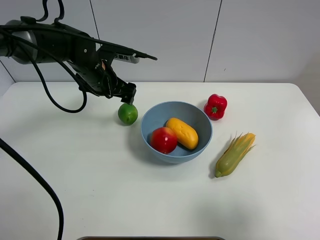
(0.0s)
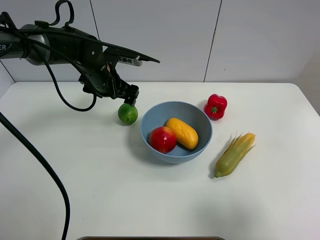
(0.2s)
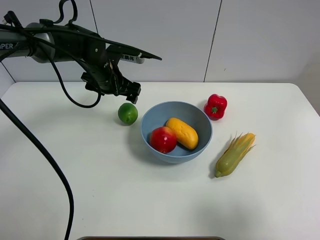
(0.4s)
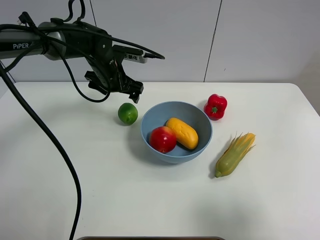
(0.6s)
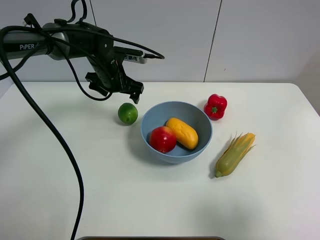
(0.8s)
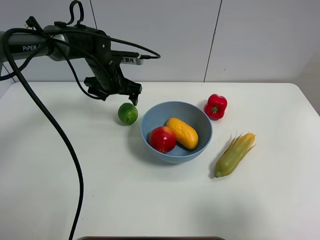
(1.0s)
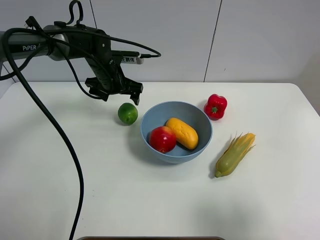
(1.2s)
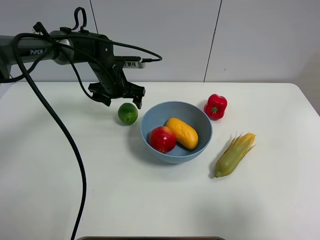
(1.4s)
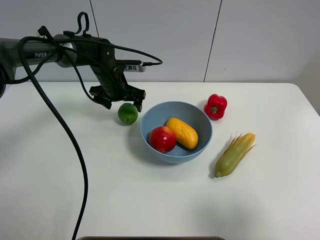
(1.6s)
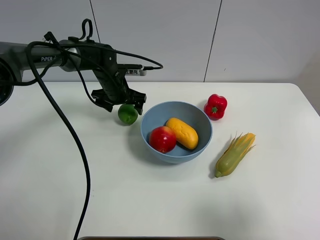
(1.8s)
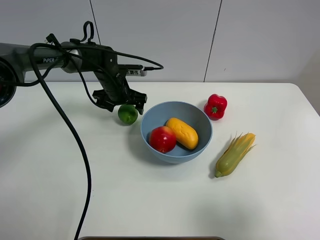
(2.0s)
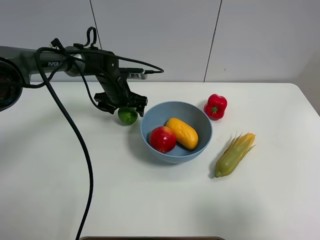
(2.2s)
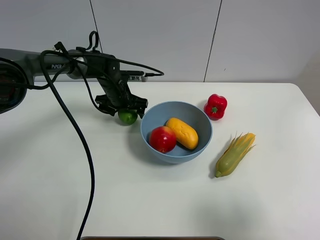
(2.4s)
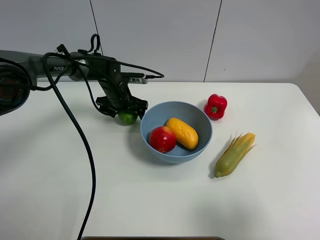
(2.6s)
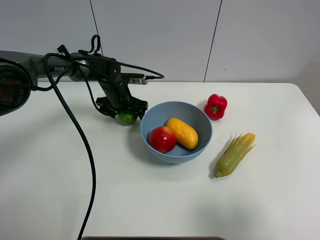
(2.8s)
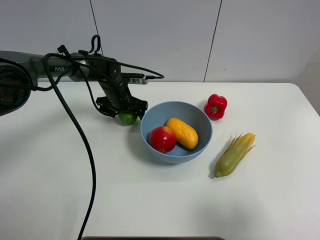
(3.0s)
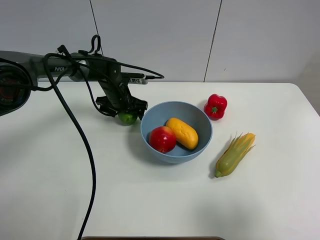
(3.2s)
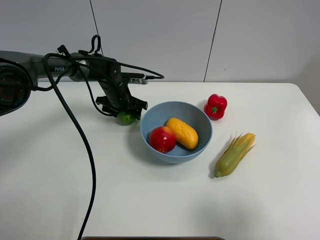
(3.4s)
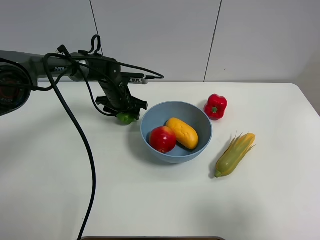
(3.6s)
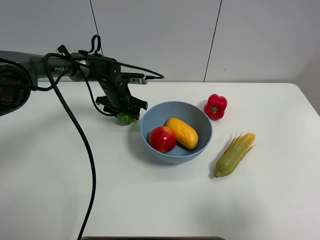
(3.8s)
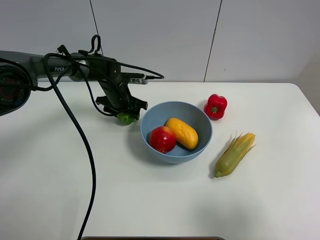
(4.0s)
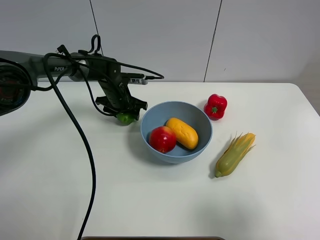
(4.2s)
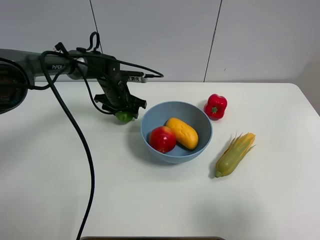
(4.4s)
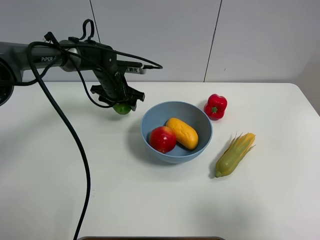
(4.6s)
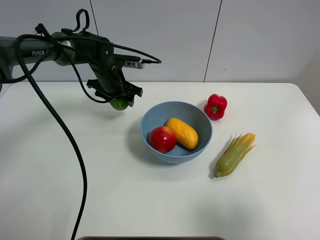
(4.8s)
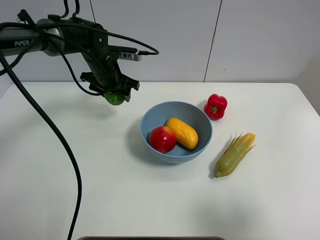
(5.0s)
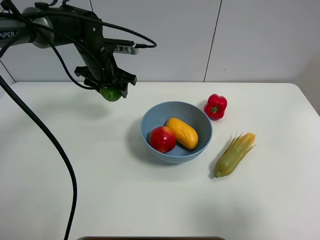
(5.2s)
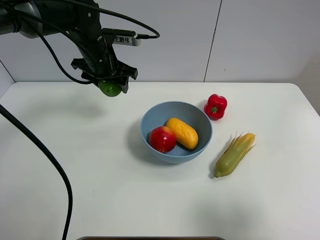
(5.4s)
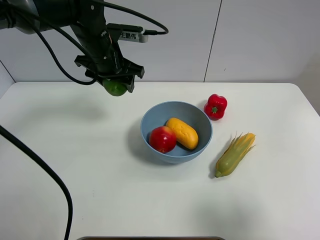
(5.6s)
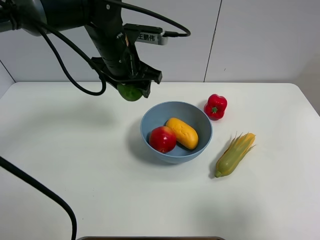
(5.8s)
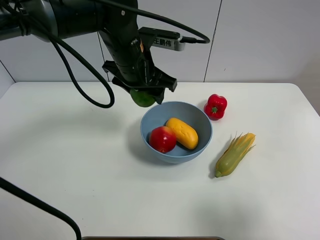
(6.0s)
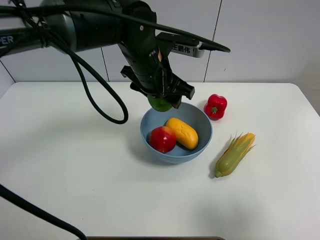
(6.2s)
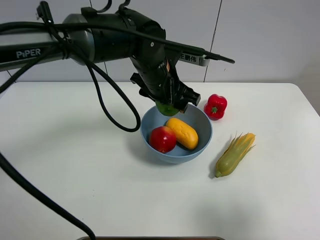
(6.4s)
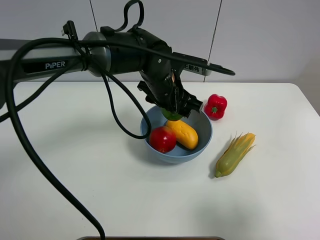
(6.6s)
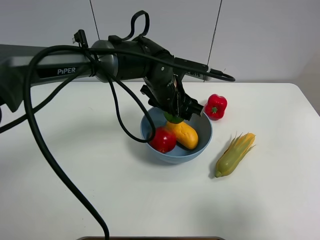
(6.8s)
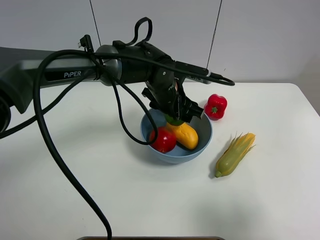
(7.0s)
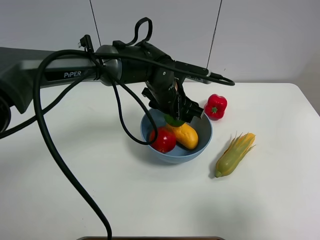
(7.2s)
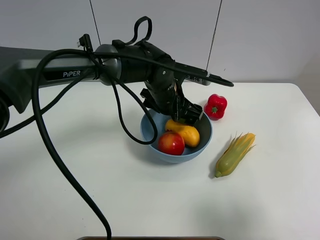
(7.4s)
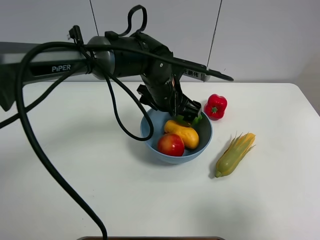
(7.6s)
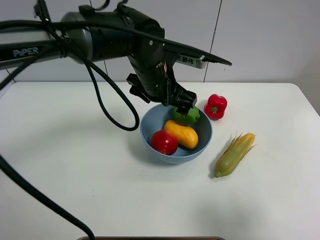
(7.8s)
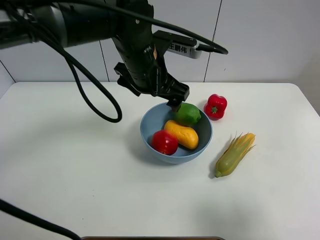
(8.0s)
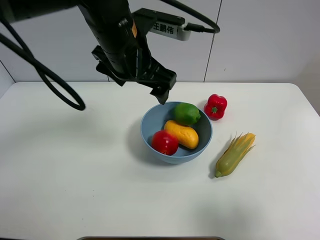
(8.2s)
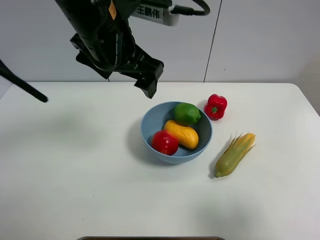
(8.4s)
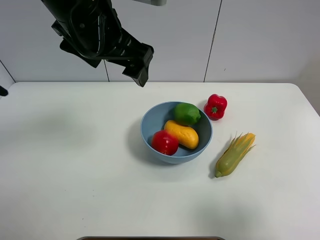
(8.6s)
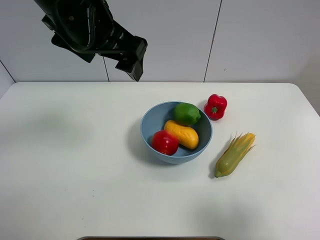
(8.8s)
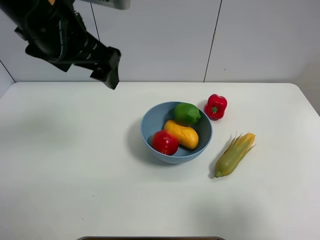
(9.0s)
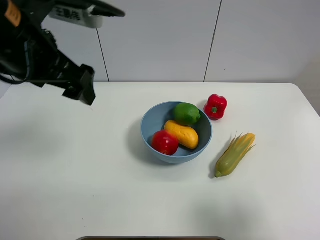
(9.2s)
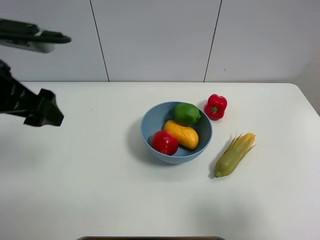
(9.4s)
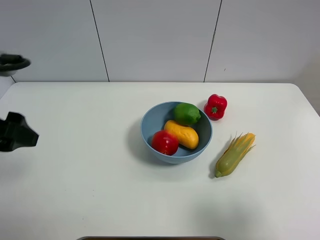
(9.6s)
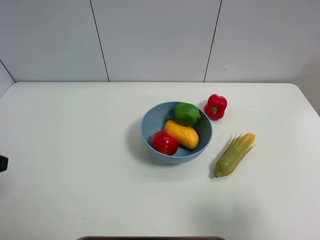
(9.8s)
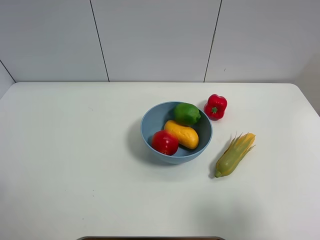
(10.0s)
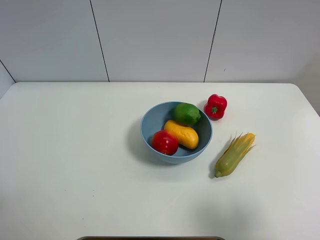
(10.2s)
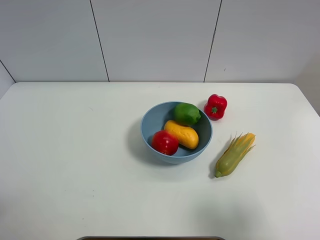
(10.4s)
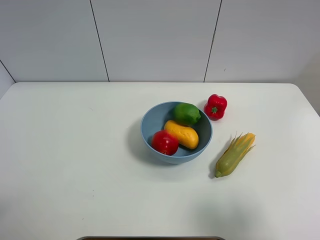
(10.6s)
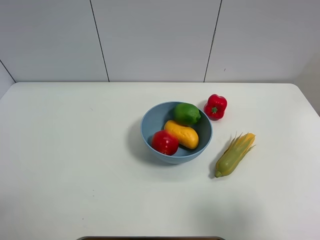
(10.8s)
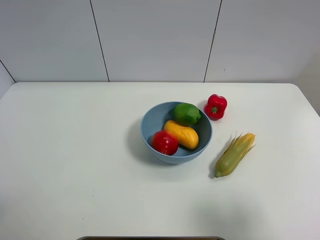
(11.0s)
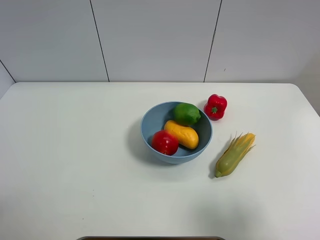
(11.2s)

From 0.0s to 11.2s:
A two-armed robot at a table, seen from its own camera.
Task of the whole recording: Put the three fruits on the table into a bowl.
Step, from 0.0s to 3.6s: Grasp the green lemon with left gripper.
Step, from 3.8s to 7.4s: Place the green lemon in the blue bowl with left gripper.
From 0.0s to 1.6s: The left gripper travels downward and forward by about 10 cm.
From 1.6s to 3.2s: The left gripper changes place by some 5 cm.
From 3.2s to 4.8s: The left gripper is displaced upward by approximately 5 cm, and closes up.
From 4.8s to 6.4s: The left gripper is displaced to the right, backward and upward by roughly 20 cm.
From 6.4s to 8.0s: The left gripper shifts roughly 5 cm upward, and opens up.
From 8.0s to 9.6s: The left gripper is displaced to the left and backward by approximately 30 cm.
From 9.6s to 11.2s: The left gripper heads backward and downward, covering some 15 cm.

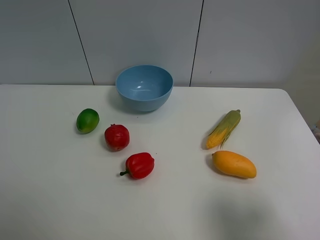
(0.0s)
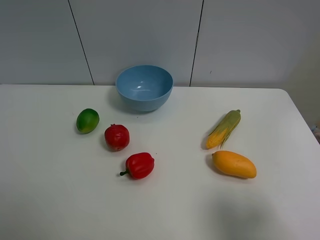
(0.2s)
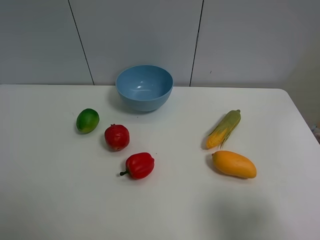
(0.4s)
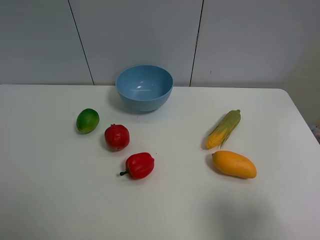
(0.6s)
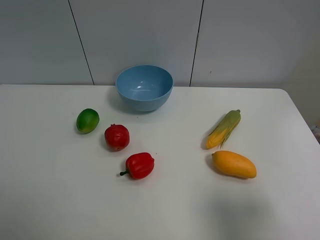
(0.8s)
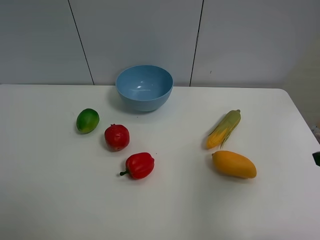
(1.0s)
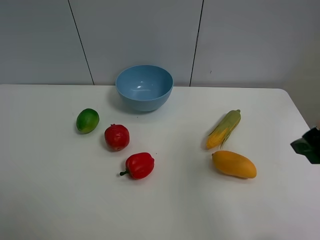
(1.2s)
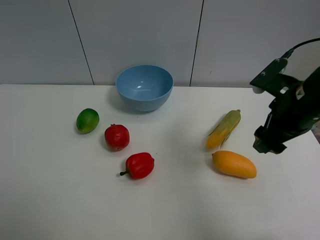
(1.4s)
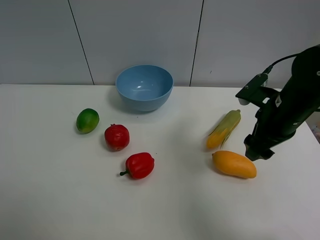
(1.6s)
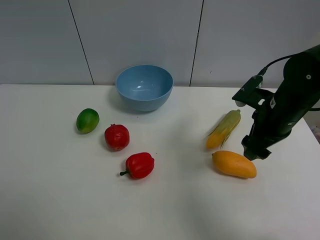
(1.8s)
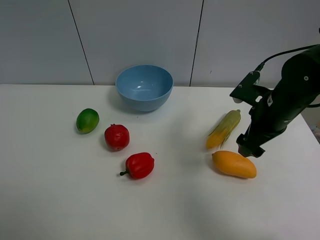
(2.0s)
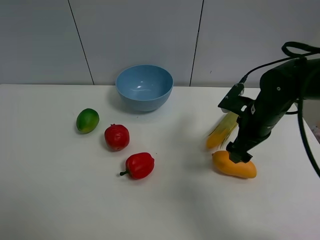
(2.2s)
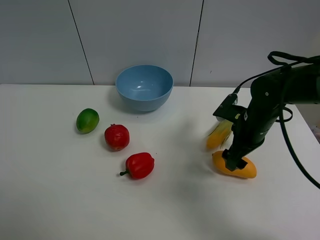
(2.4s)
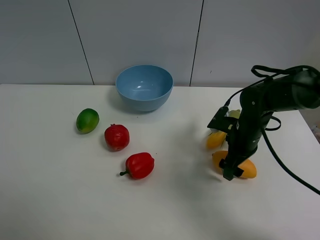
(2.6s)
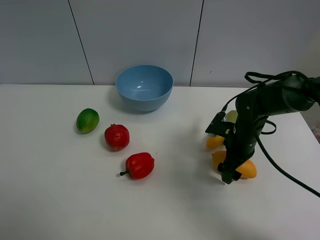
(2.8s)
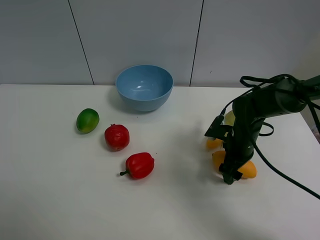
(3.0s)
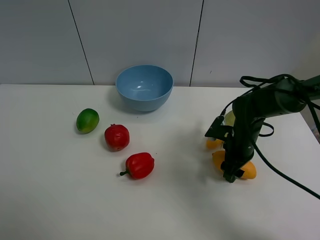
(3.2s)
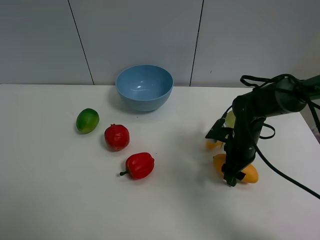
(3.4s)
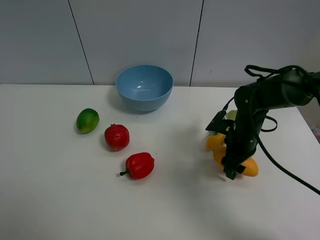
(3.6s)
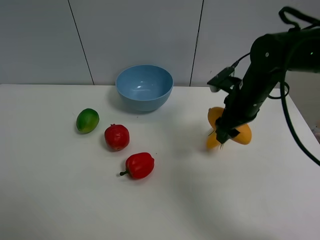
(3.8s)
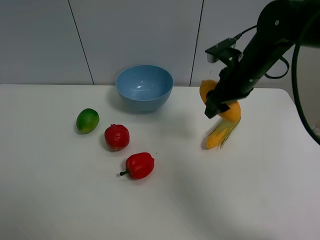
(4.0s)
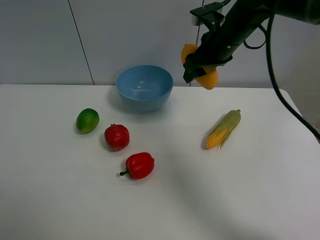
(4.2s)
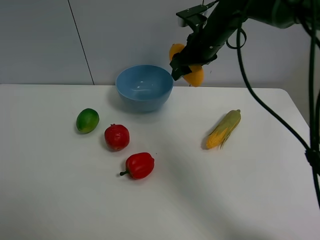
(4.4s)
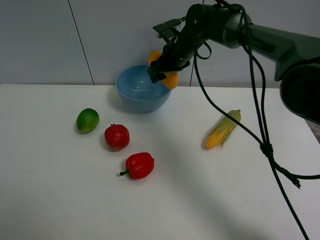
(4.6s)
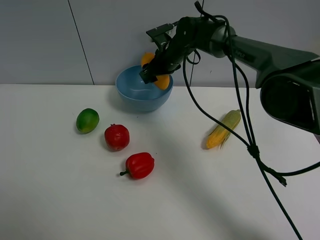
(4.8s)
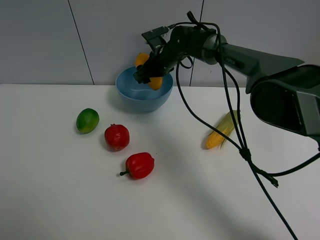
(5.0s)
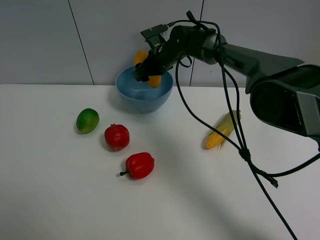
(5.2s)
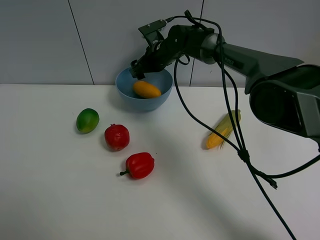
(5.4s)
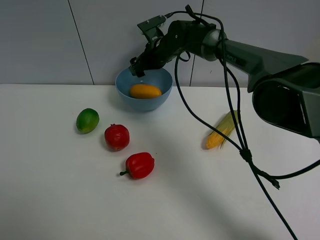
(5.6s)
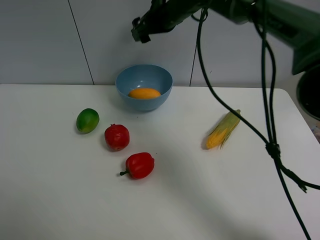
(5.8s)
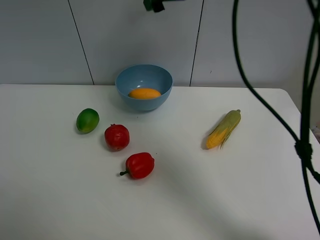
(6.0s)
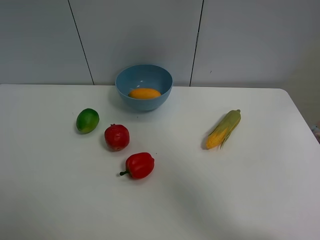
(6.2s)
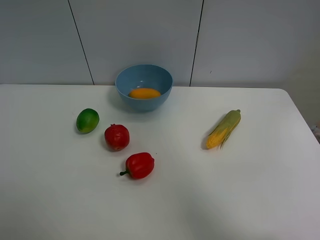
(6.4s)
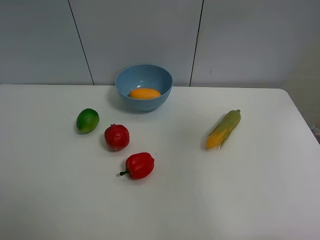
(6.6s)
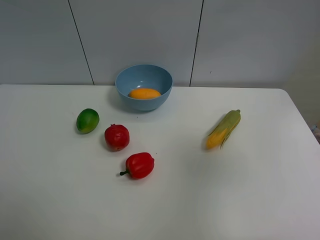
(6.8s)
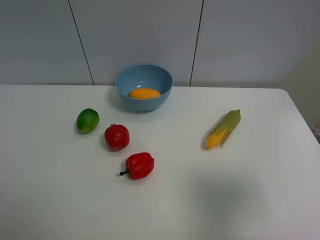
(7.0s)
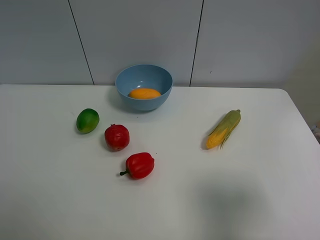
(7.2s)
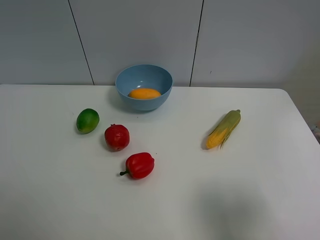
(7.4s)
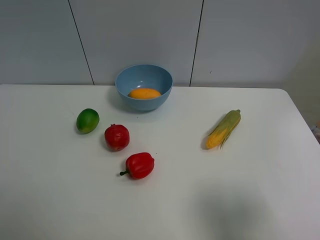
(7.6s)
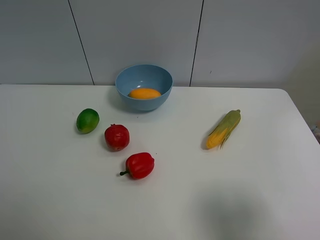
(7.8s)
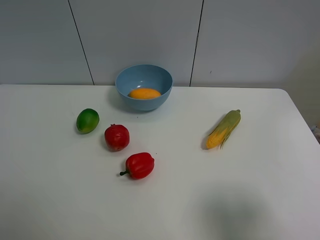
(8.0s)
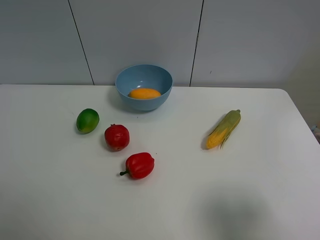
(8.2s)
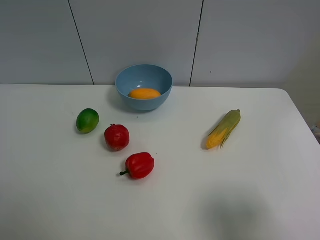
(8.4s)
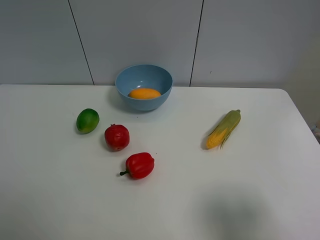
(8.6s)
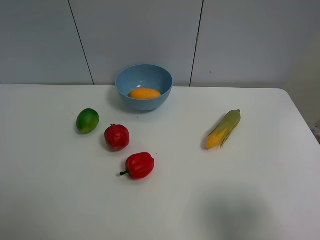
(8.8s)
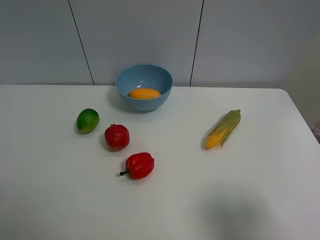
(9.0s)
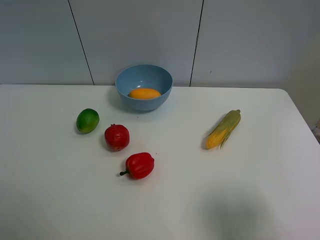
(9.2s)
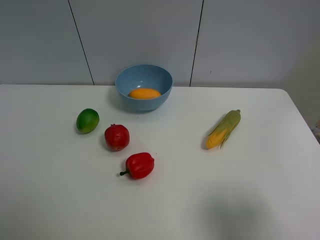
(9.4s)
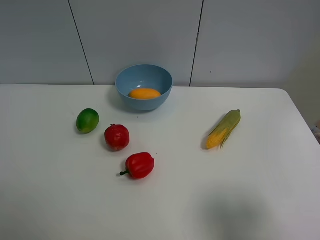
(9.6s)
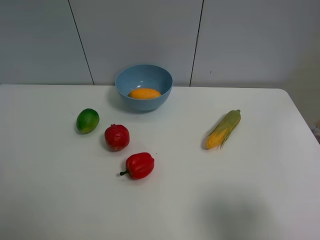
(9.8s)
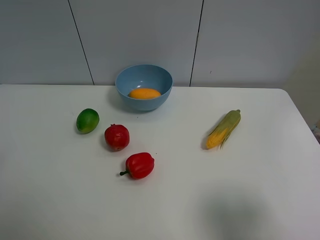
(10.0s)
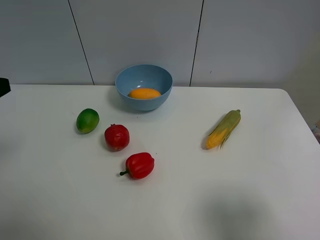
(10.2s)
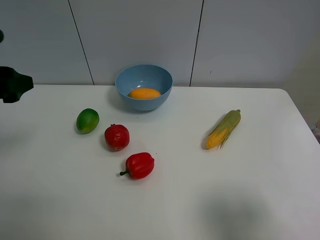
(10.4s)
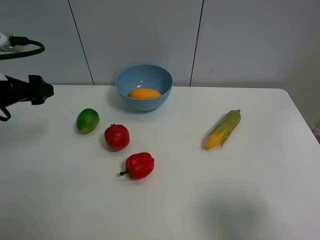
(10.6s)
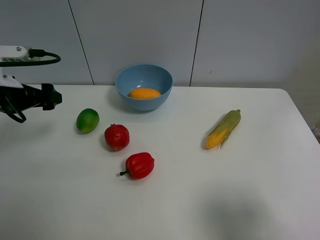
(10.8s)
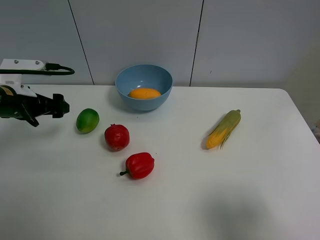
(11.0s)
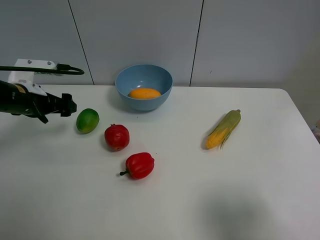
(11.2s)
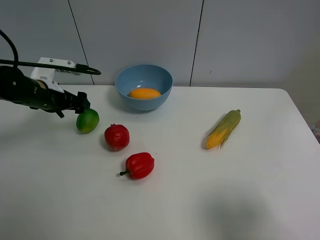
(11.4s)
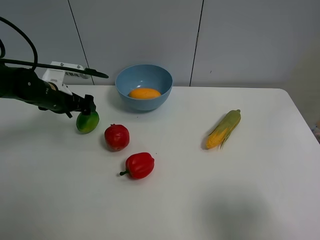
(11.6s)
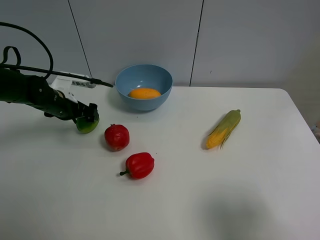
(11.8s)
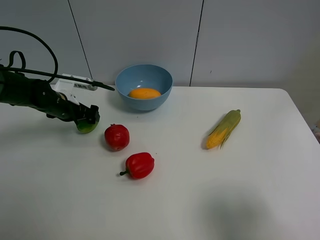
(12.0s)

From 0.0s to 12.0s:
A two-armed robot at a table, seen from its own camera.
Task of the whole recording: Put the three fruits on the table into a bowl.
Step, from 0.0s to 3.2s: Grasp the mango with right gripper.
Step, from 3.4s to 5.2s: Place the mango in the blue bowl with right gripper.
From 0.0s to 1.6s: The right gripper goes about 25 cm forward.
From 1.6s to 3.0s: The right gripper is displaced downward by about 15 cm, and opens, then closes again.
From 3.0s to 4.4s: The right gripper shifts roughly 25 cm upward, forward and to the left, and closes.
From 4.4s to 6.0s: The right gripper travels upward by roughly 15 cm, and opens its fingers.
From 6.0s to 7.6s: The right gripper travels backward and to the right by about 50 cm.
From 9.0s to 10.4s: The left gripper goes approximately 20 cm forward.
From 10.4s to 12.0s: The left gripper heads downward and forward, covering roughly 25 cm.
